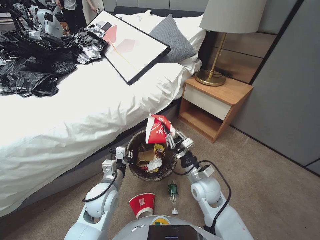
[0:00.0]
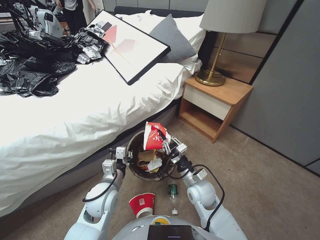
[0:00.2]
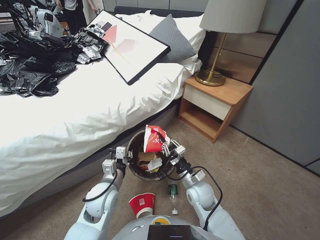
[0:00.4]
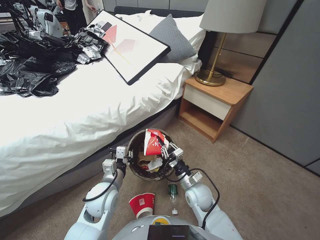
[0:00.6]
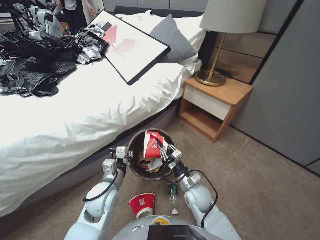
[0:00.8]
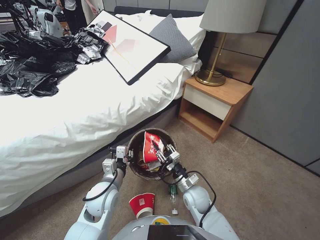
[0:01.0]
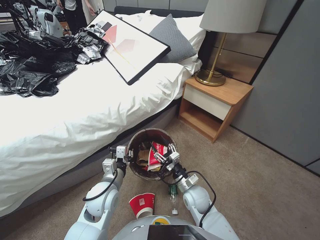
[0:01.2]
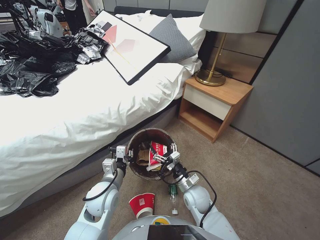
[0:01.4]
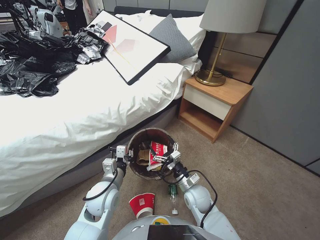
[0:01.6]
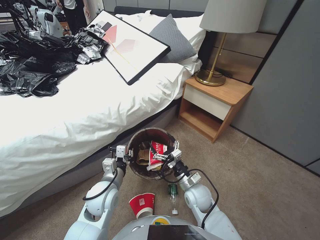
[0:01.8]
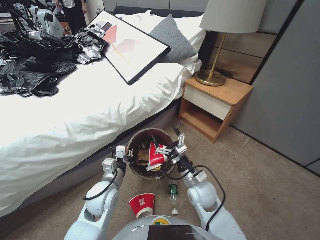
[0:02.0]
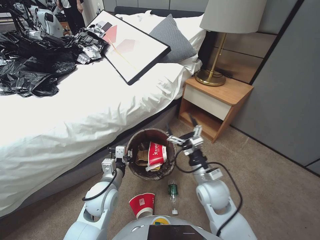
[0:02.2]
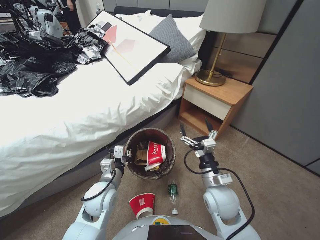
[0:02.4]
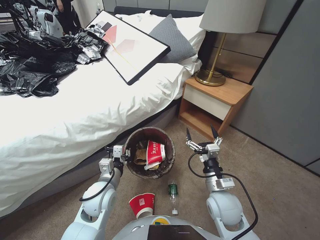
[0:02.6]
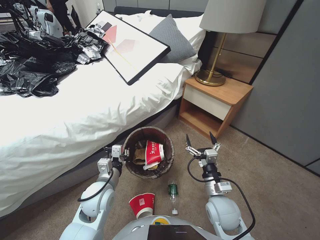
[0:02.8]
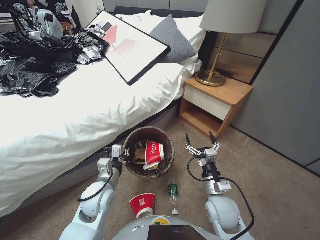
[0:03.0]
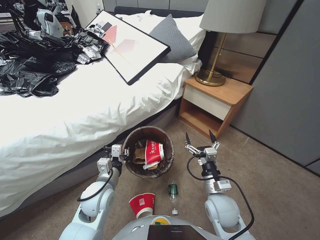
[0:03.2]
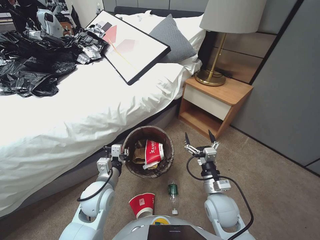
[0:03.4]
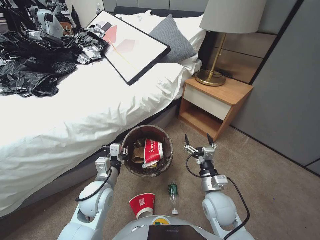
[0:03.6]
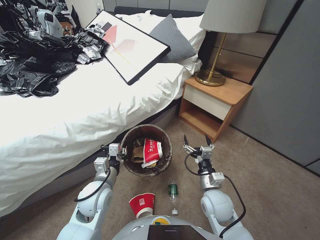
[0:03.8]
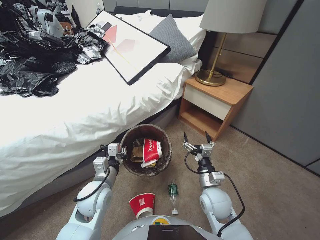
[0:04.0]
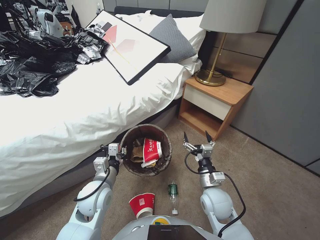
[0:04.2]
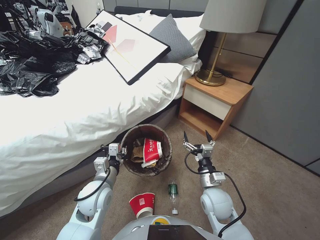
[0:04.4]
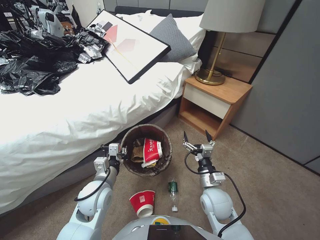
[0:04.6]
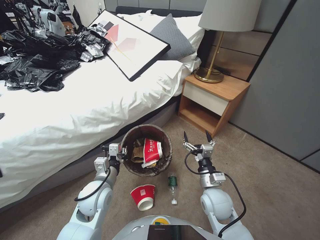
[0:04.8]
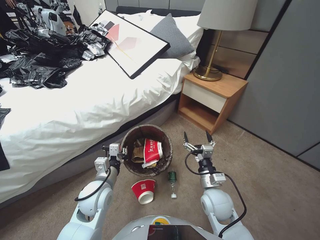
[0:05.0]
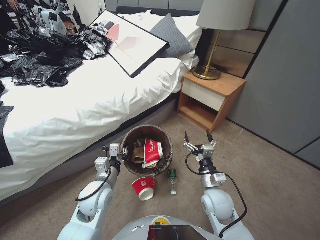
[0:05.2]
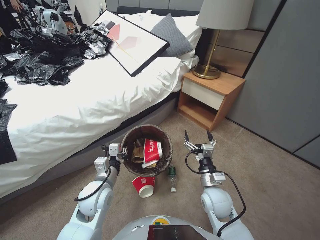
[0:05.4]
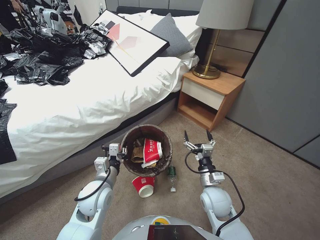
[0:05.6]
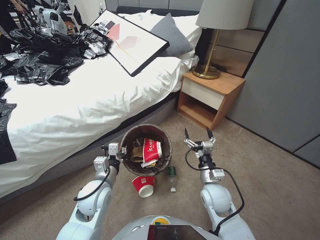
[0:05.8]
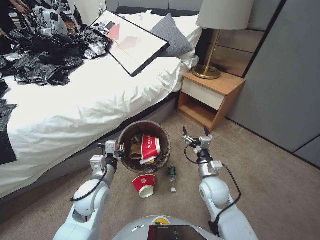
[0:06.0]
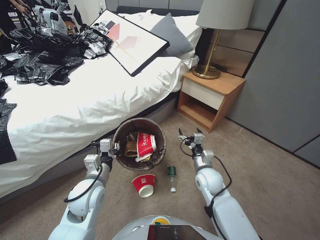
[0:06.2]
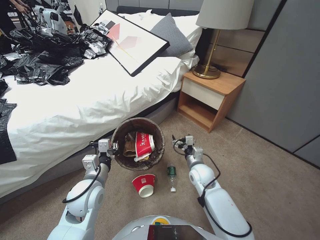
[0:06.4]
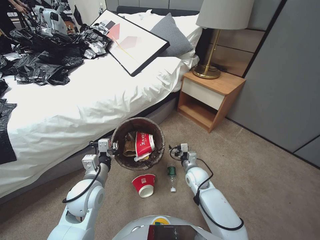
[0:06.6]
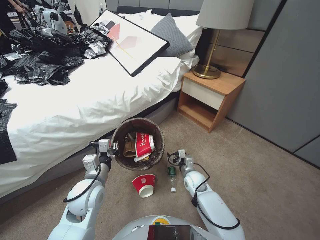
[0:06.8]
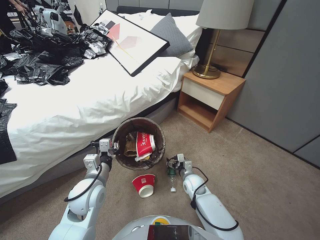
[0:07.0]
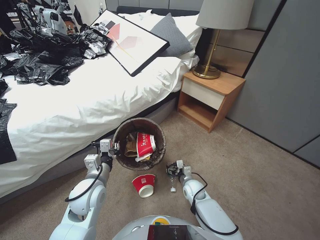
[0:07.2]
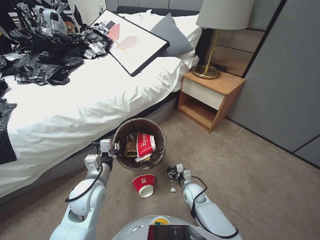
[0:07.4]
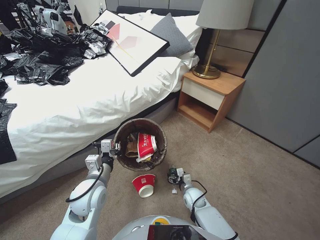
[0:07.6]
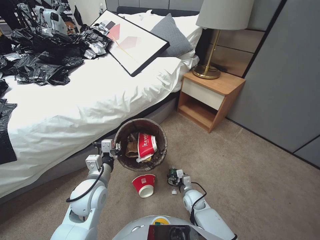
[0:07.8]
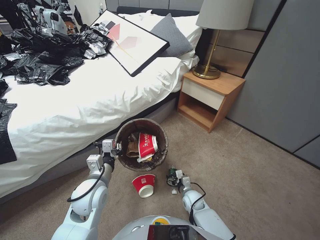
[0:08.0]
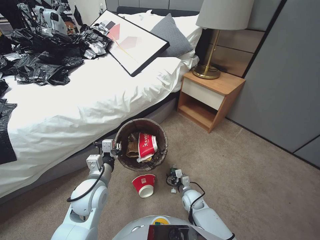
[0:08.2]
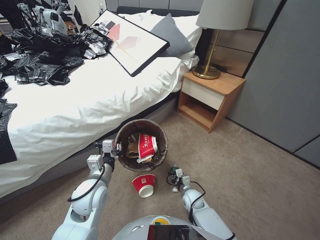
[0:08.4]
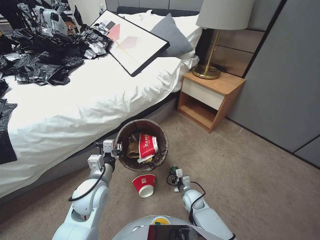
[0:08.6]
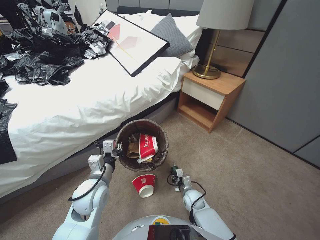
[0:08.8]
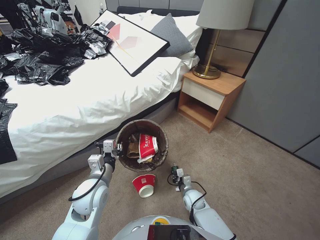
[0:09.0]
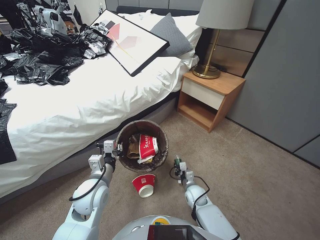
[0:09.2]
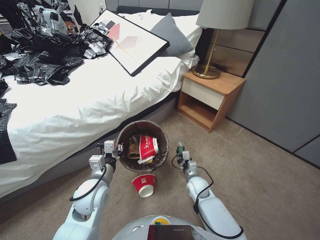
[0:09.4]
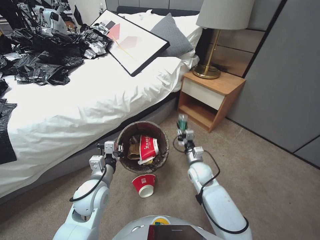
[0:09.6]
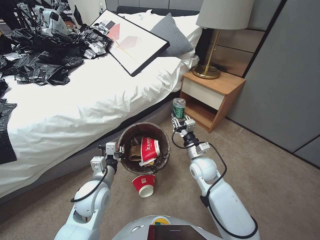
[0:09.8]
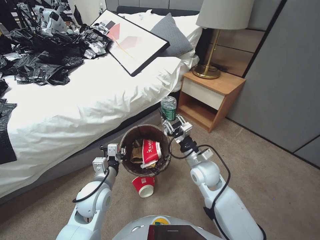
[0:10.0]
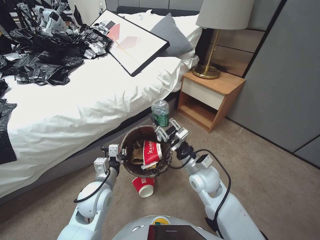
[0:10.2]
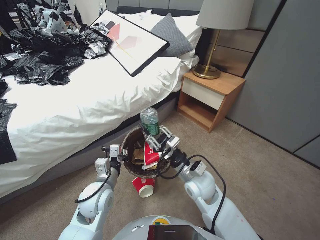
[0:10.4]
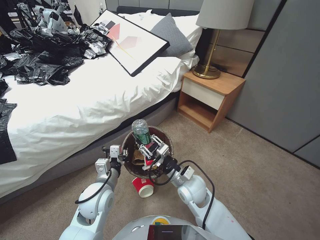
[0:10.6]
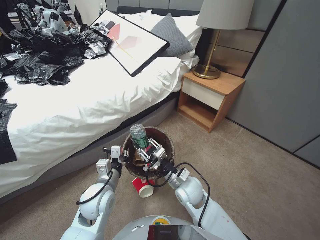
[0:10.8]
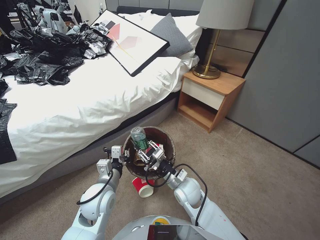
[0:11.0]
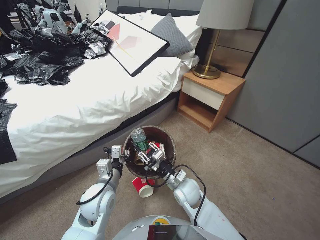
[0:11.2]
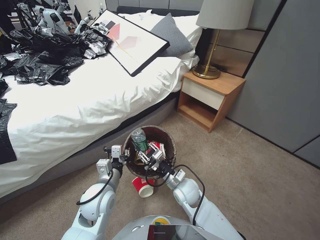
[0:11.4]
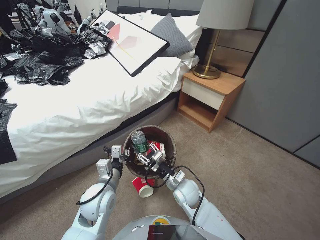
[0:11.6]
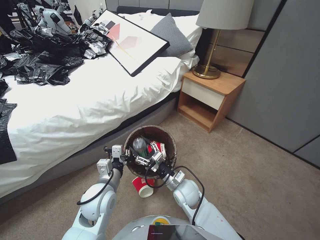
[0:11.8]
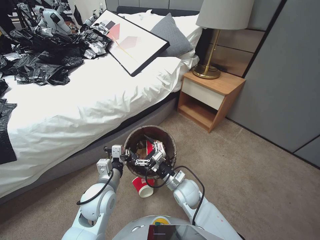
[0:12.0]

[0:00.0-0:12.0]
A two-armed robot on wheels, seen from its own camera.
Task of the whole recording: Pick up the trash bin, then pick up the garbage from the floor and place it into the trash bin.
0:00.0 to 0:01.6: The right gripper moves downward, approximately 10 cm, and opens.
0:01.6 to 0:03.0: The right gripper heads upward, to the right and backward, covering some 10 cm.
0:03.0 to 0:04.4: The grippers move only a little.
0:06.0 to 0:07.6: The right gripper heads downward, covering approximately 20 cm.
0:07.6 to 0:09.0: The right gripper closes.
0:09.0 to 0:10.4: The right gripper heads upward, covering about 25 cm.
0:10.4 to 0:12.0: The right gripper travels downward by about 10 cm, and opens.

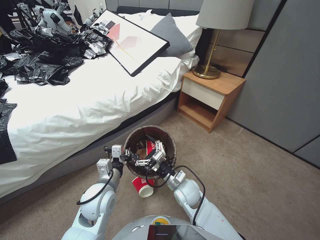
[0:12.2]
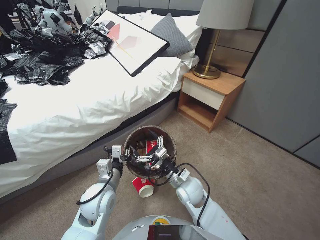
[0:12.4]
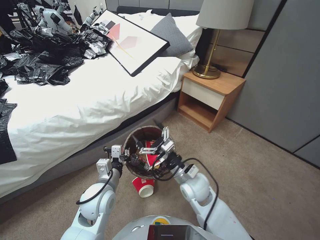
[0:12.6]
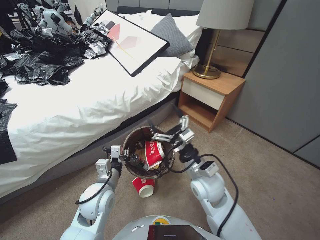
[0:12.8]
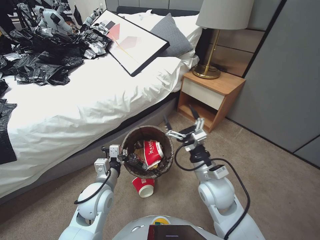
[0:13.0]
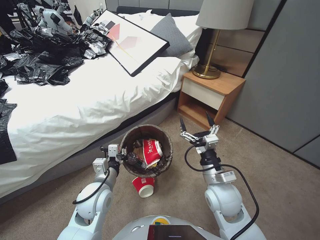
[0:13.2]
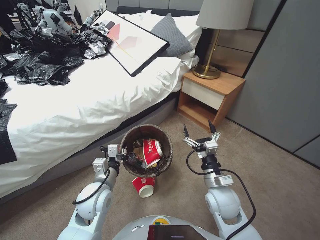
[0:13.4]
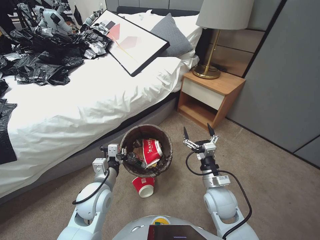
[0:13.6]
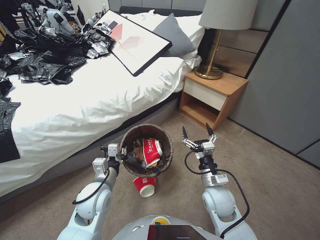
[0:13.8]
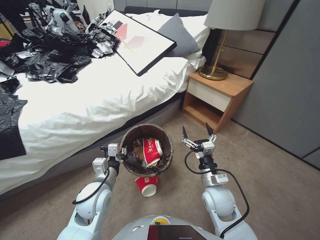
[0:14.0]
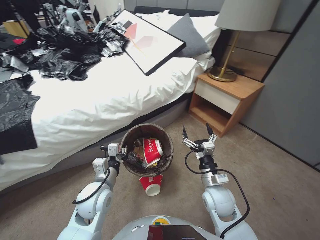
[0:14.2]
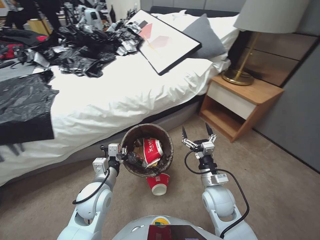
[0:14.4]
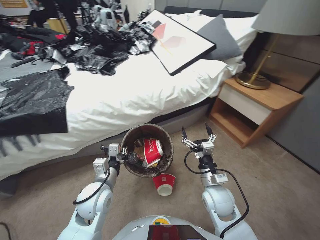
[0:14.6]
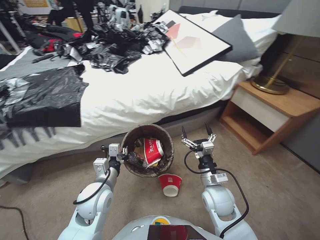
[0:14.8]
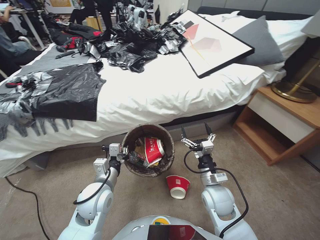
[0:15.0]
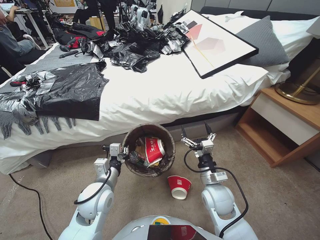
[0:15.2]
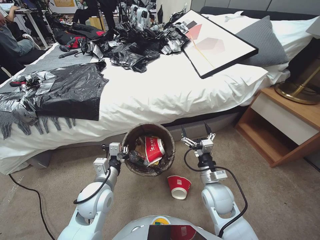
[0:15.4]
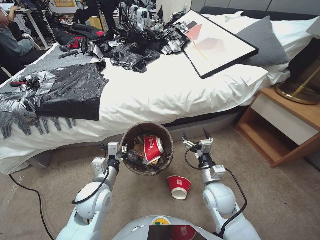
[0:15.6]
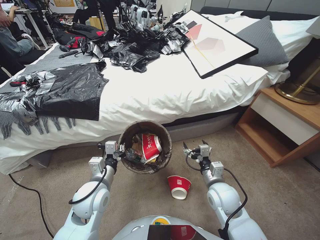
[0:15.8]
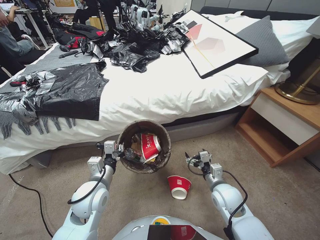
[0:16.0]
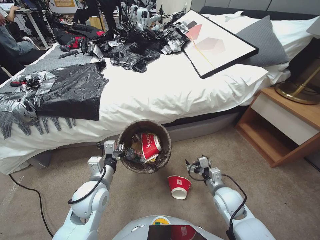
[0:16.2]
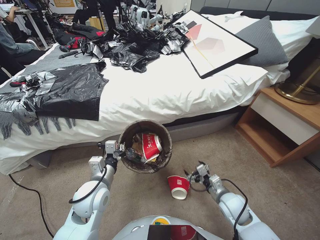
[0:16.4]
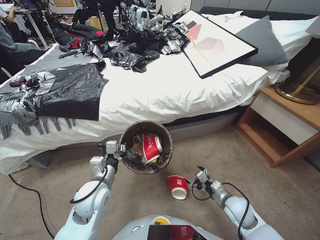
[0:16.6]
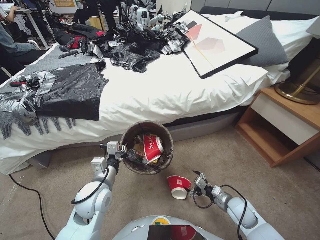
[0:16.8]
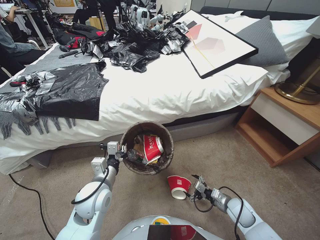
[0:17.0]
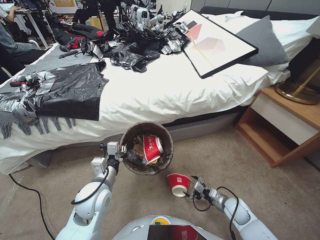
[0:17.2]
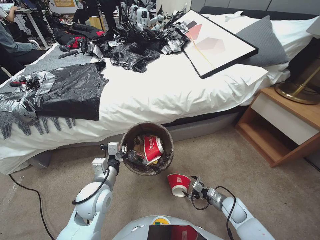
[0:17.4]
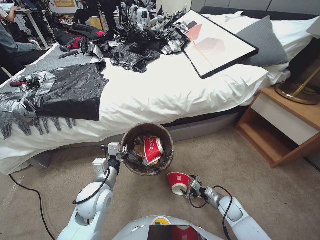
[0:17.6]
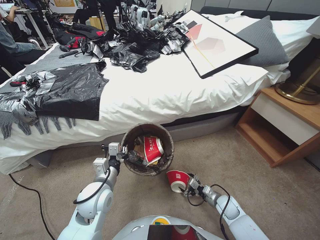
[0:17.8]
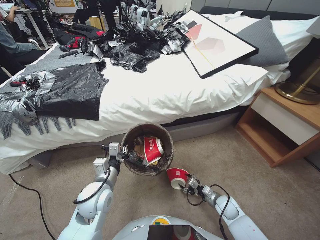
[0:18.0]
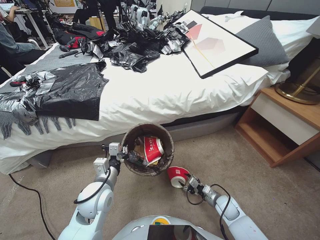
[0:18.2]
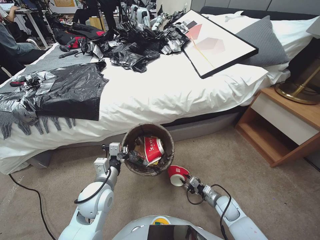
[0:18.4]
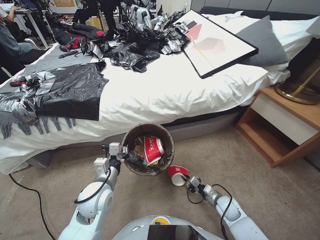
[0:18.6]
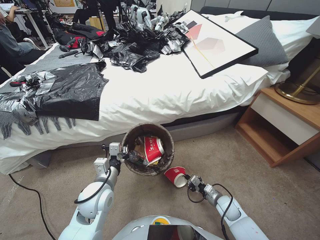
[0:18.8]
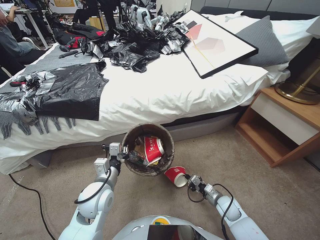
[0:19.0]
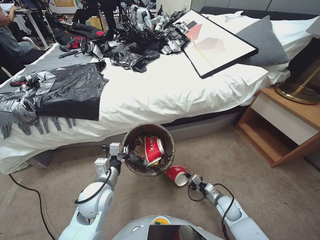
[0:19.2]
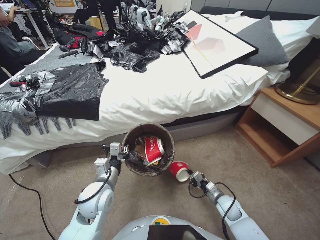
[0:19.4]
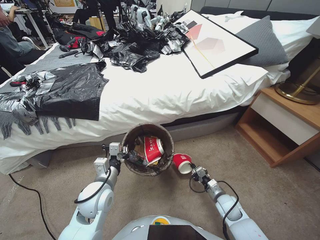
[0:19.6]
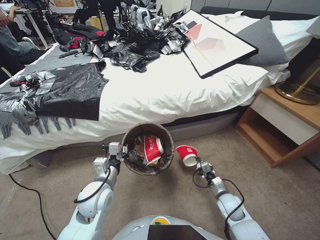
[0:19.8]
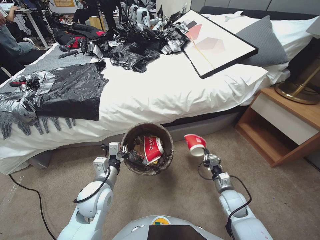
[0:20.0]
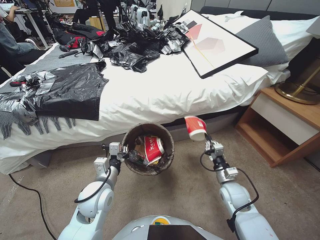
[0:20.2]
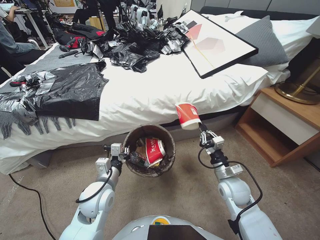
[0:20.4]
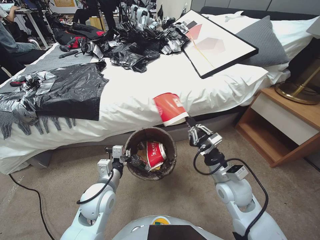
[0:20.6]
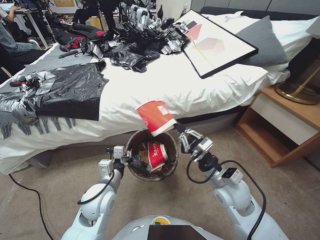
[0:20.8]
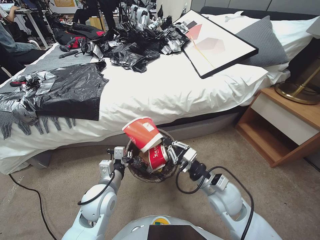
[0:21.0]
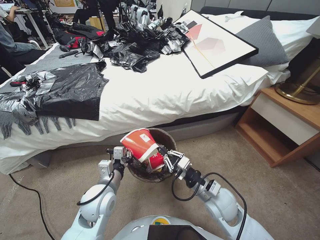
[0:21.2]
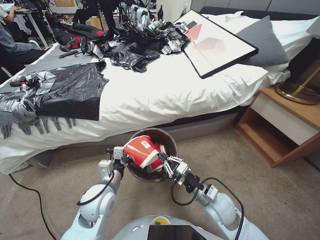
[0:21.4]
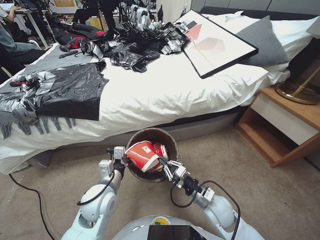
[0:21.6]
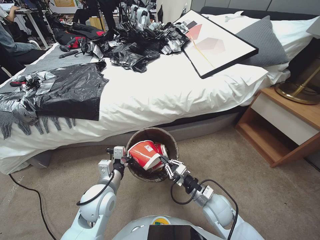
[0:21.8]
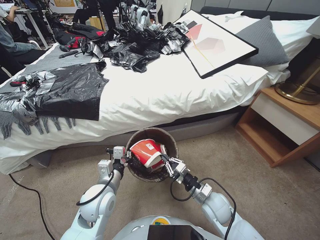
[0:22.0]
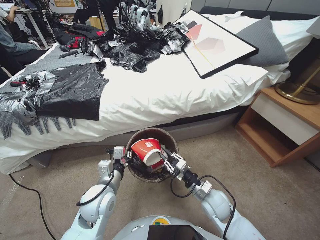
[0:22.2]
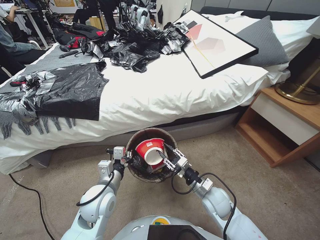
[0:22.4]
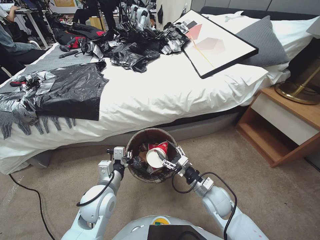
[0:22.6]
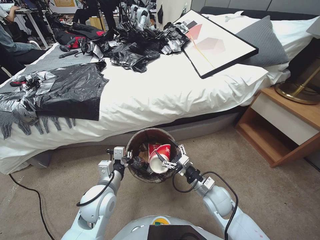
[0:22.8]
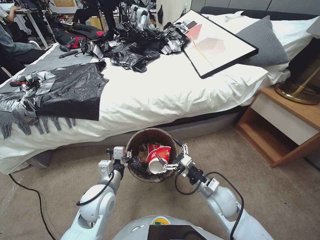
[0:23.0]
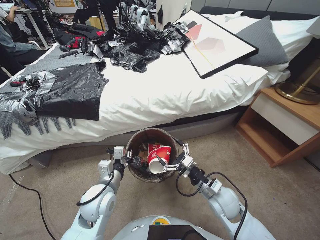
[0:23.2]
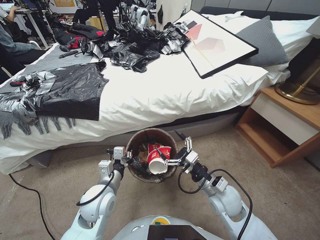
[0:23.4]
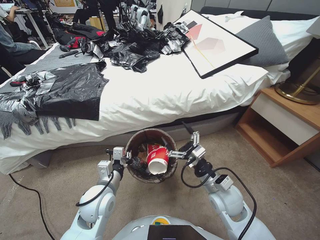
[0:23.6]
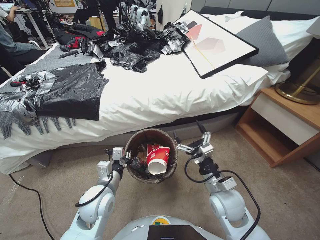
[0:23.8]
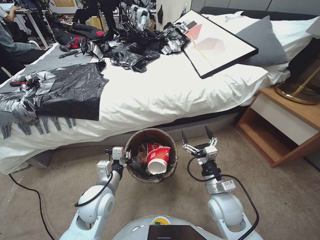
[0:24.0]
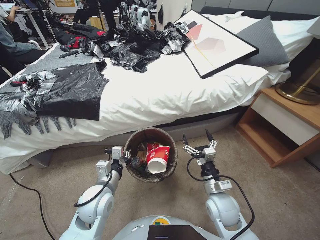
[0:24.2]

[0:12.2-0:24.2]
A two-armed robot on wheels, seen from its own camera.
Task of the whole recording: Pick up the trash bin, then pick up the garbage from the floor and place it into the trash bin.
0:12.2 to 0:13.8: The right gripper travels to the right by approximately 10 cm.
0:15.2 to 0:16.6: The right gripper travels to the right and downward by roughly 10 cm.
0:16.6 to 0:18.2: The right gripper heads downward, covering some 10 cm, and closes.
0:18.2 to 0:19.8: The right gripper closes its fingers.
0:19.8 to 0:21.2: The right gripper shifts some 25 cm upward and to the left.
0:21.2 to 0:22.6: The right gripper shifts some 10 cm downward, and opens up.
0:22.6 to 0:24.2: The right gripper opens up.
